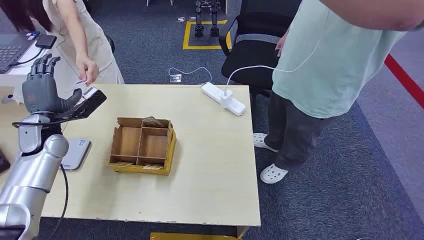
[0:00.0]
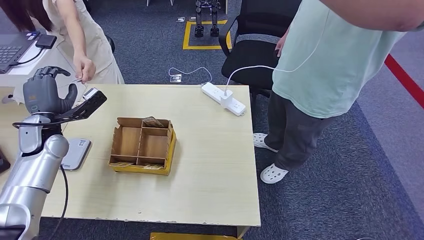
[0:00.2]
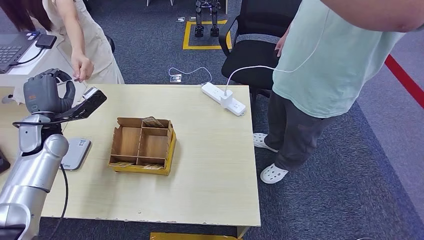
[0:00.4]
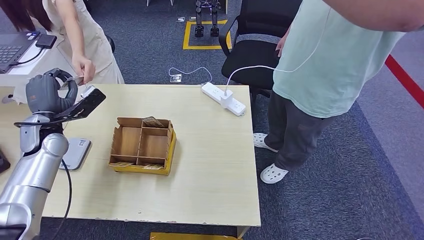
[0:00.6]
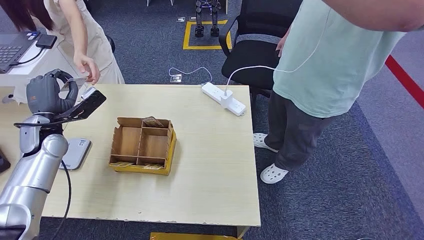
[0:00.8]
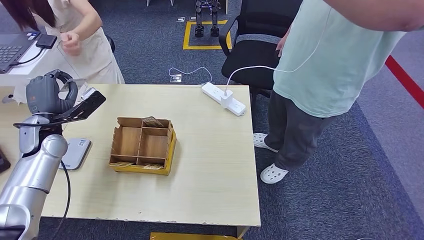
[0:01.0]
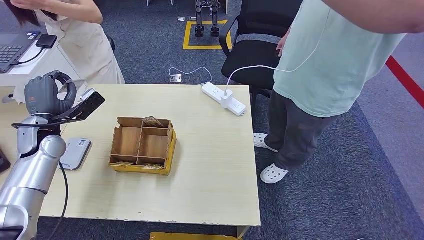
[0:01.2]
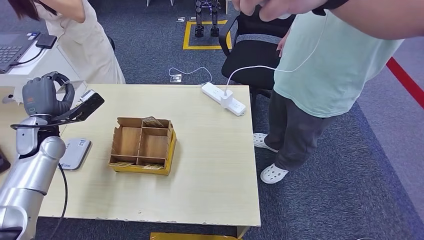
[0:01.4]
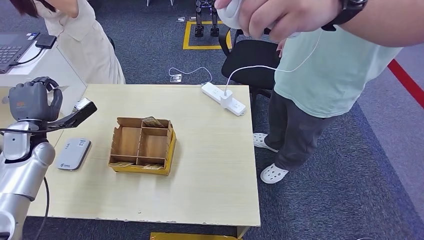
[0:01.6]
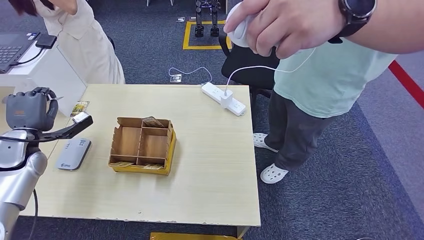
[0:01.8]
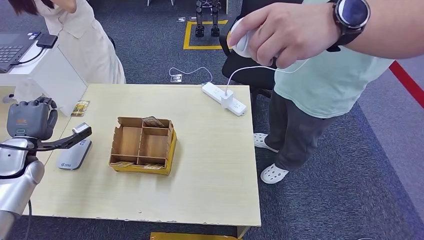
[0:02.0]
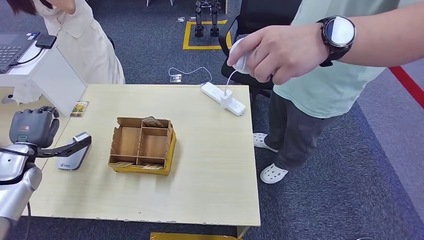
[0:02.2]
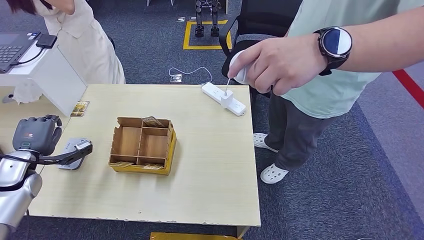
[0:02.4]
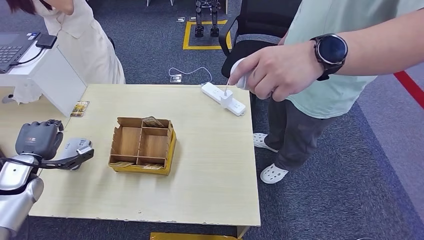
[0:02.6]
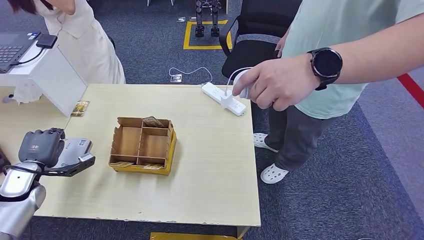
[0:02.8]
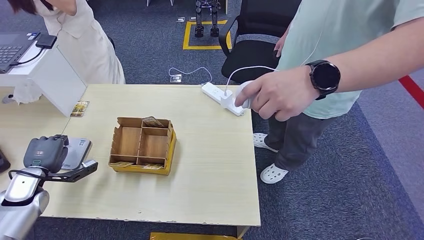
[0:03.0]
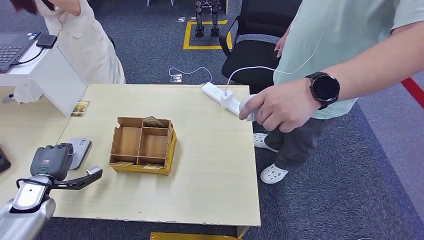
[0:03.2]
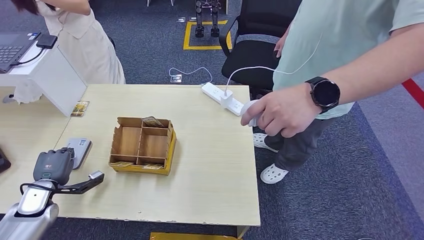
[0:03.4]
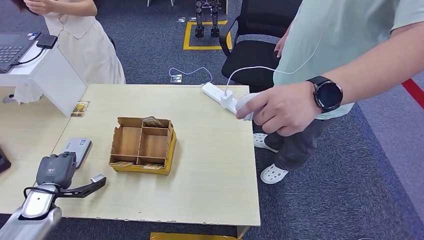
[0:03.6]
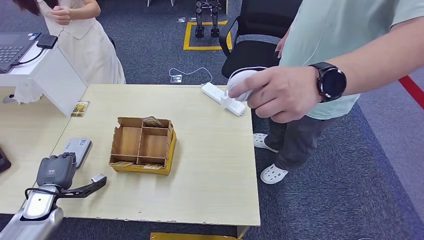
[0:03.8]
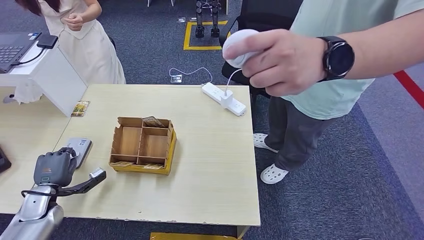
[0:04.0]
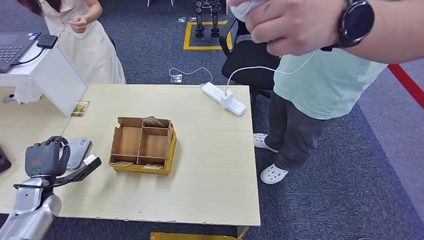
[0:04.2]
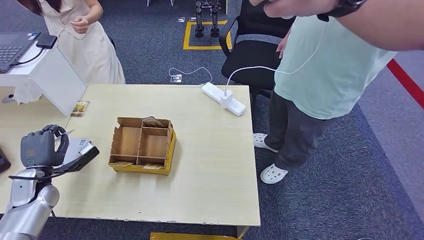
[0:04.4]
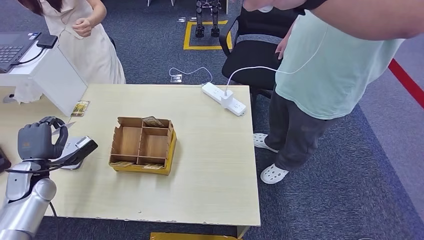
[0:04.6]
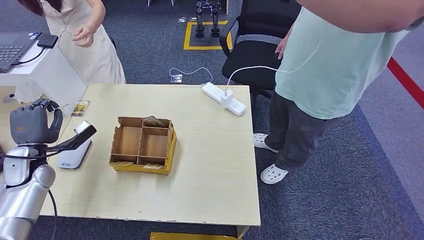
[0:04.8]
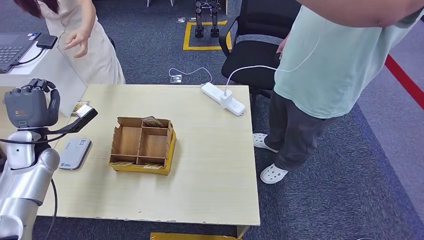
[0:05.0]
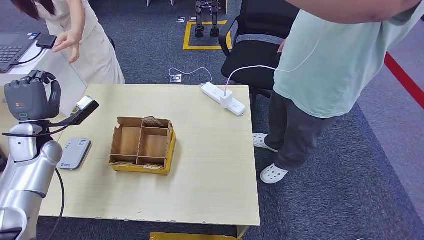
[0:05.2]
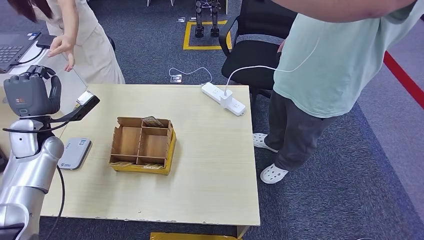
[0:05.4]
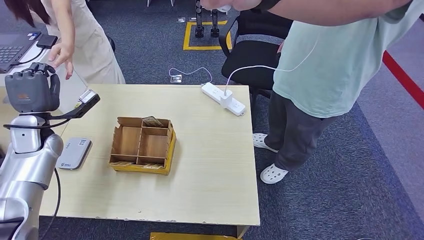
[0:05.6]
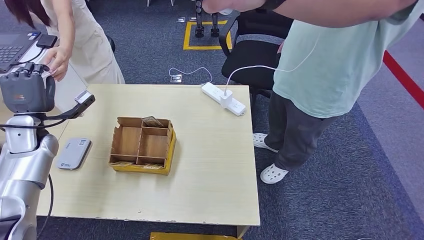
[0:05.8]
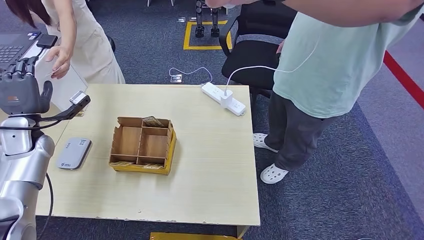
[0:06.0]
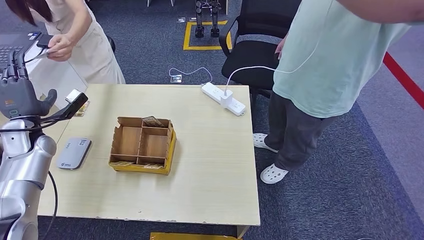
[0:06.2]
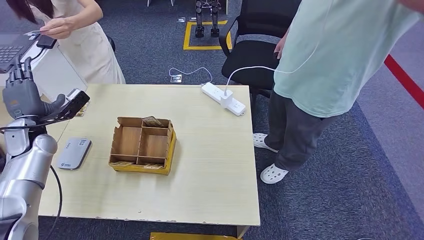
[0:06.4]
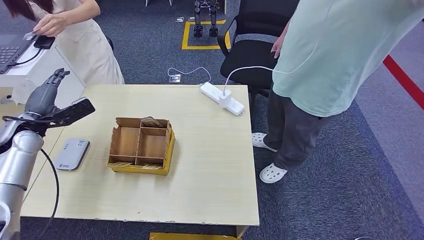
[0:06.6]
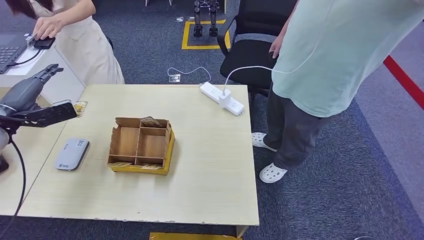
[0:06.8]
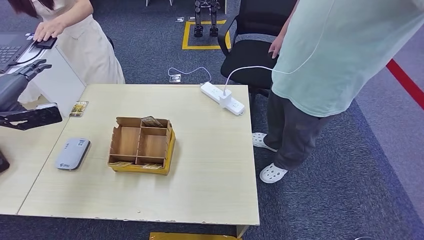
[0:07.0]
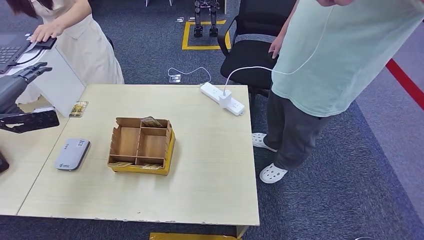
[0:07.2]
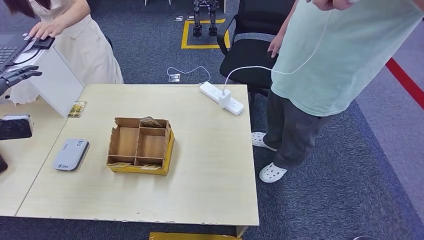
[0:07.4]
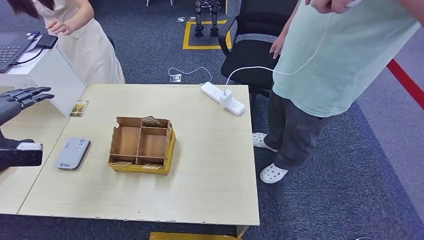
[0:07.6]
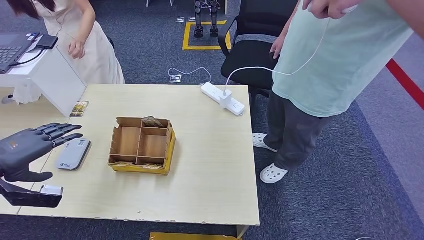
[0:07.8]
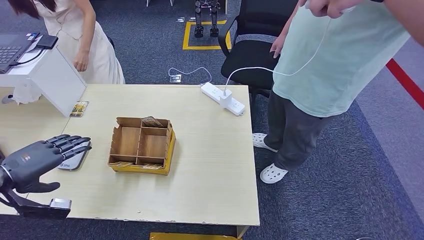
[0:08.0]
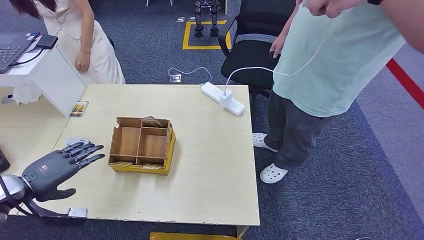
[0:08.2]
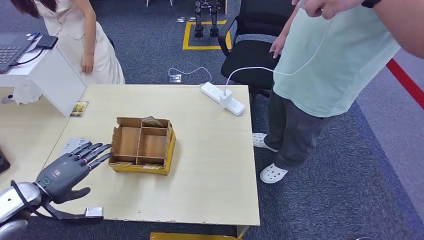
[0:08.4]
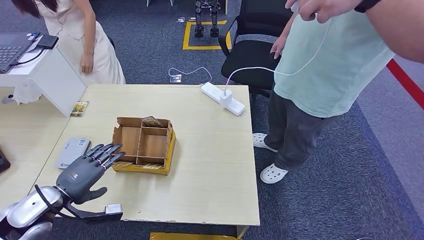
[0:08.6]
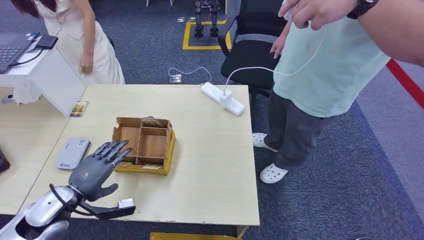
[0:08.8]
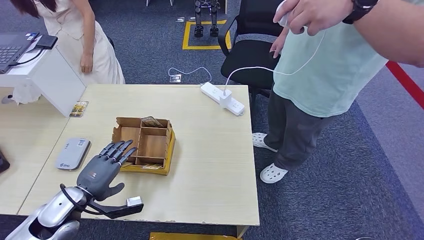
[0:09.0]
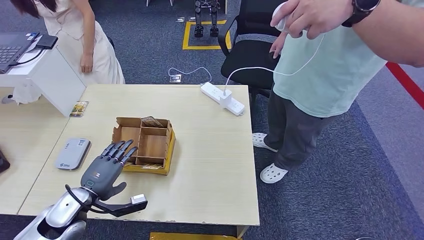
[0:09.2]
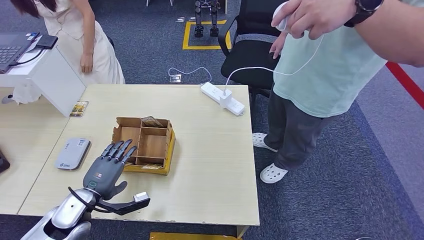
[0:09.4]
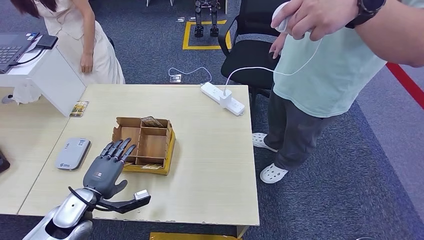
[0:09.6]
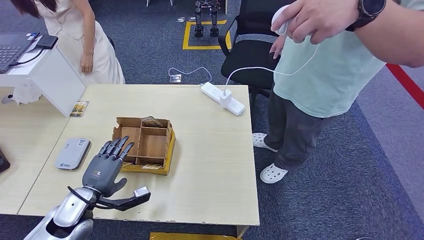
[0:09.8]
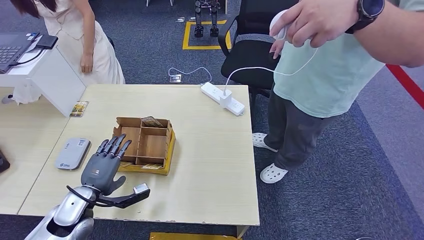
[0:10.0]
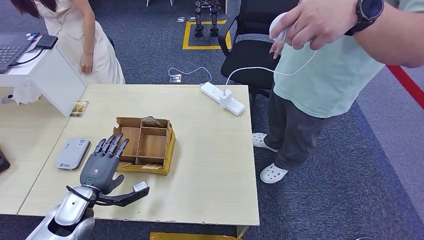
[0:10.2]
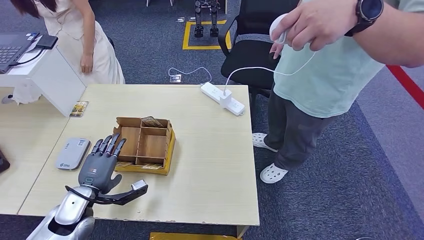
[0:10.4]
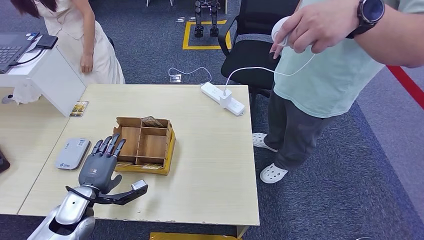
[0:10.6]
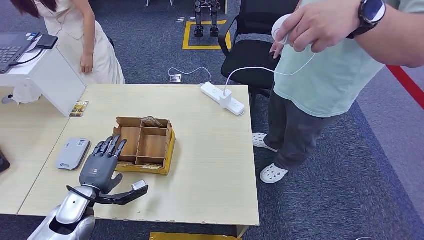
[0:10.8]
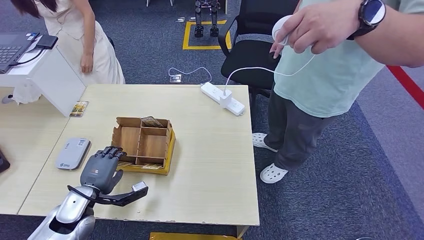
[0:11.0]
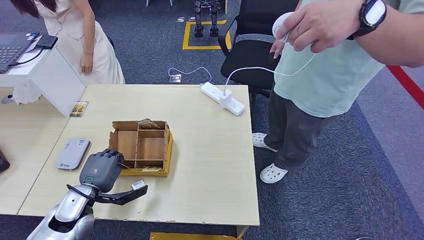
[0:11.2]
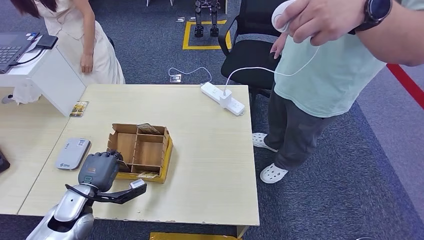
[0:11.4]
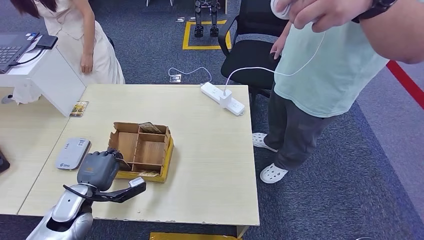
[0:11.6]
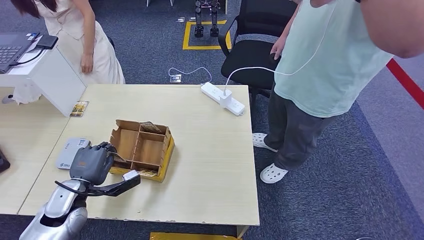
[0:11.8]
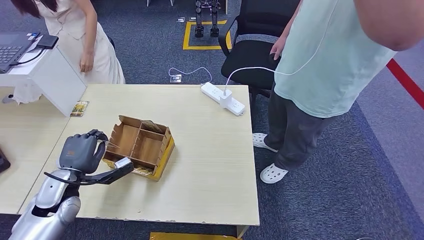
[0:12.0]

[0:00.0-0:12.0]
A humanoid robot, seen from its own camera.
Step, 0:00.0 to 0:02.6: Take the ID card from the person's hand.
Step, 0:02.8 to 0:04.6: Place the ID card on the card reader.
Step, 0:04.8 to 0:07.2: Hand the ID card to the person.
0:01.6 to 0:03.0: The left hand travels downward and backward by some 15 cm.
0:04.4 to 0:06.0: The left hand travels upward and forward by approximately 15 cm.
0:06.0 to 0:07.6: The left hand goes some 15 cm backward and upward.
0:07.6 to 0:09.0: The left hand shifts roughly 25 cm downward and to the right.
0:09.0 to 0:10.4: There are only small adjustments of the hands.
0:10.4 to 0:12.0: The left hand changes place by roughly 5 cm.

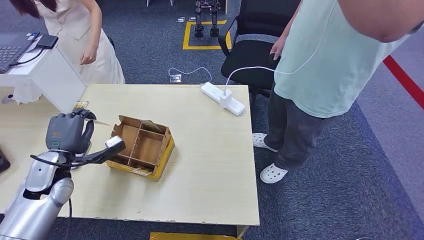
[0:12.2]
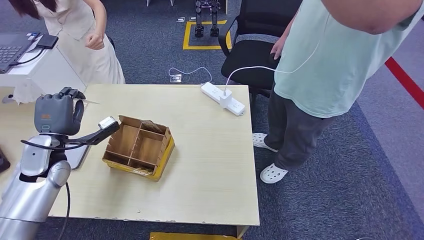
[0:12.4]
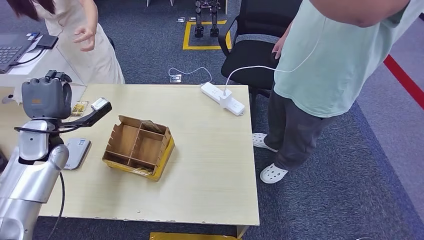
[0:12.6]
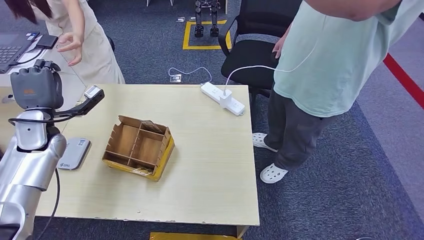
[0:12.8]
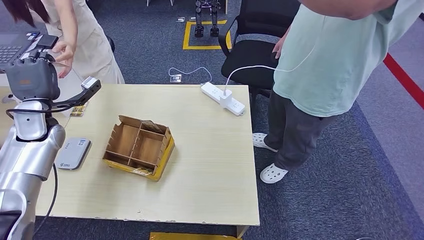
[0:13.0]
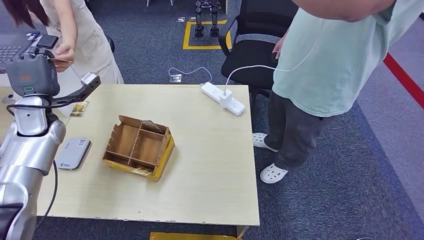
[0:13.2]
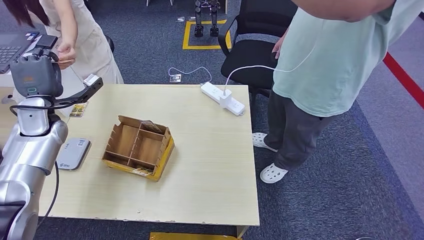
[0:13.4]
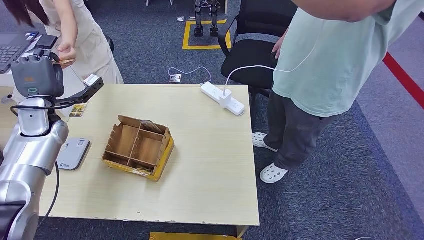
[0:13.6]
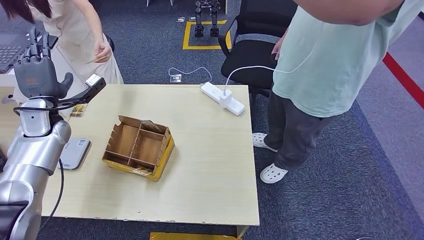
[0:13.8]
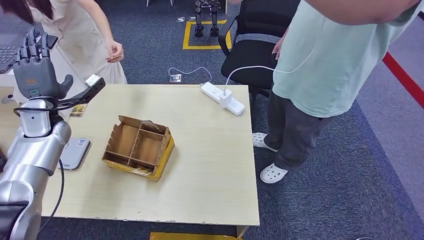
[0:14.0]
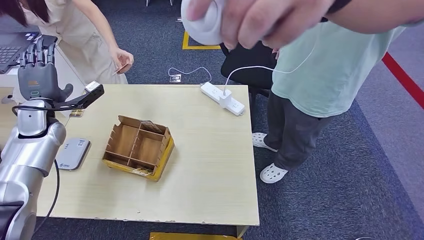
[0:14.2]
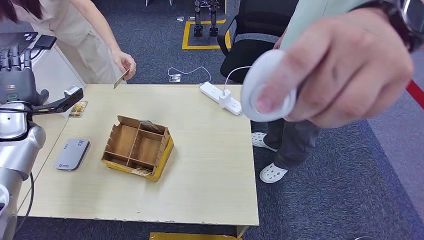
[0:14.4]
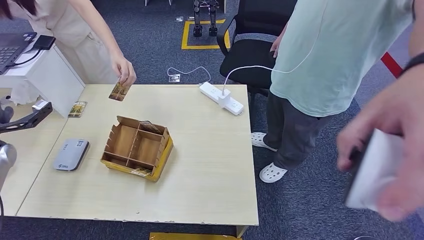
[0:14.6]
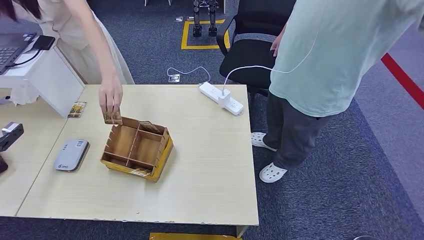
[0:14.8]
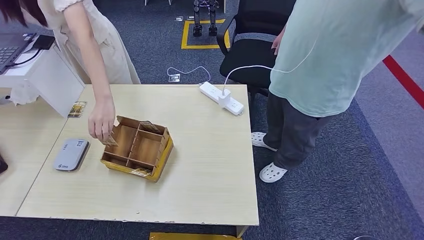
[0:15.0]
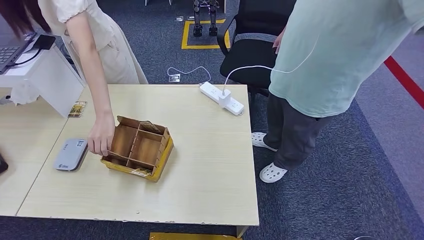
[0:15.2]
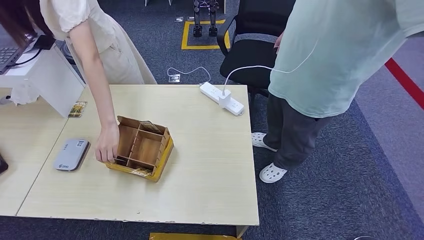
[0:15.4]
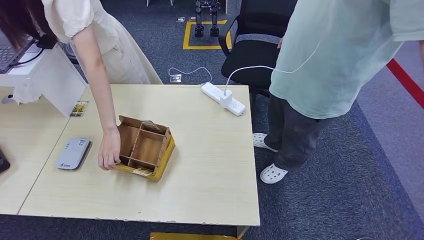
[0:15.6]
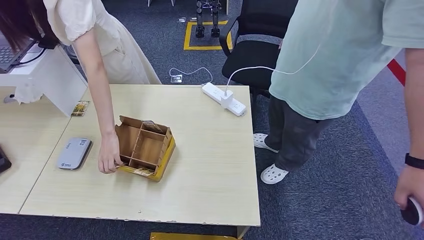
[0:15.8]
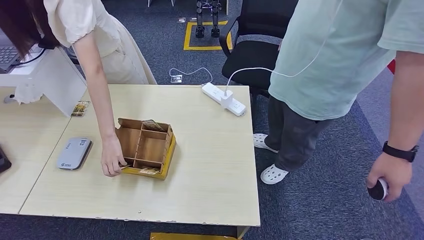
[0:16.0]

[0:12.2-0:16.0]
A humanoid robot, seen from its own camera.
Step, 0:13.0 to 0:16.0: Hand the room key to the person.
0:12.2 to 0:13.4: The left hand shifts about 15 cm forward and upward.
